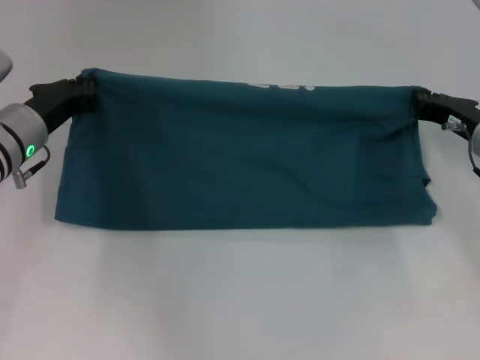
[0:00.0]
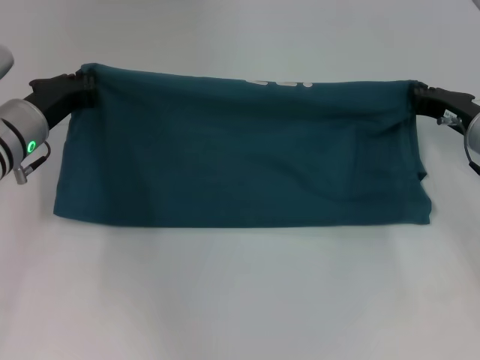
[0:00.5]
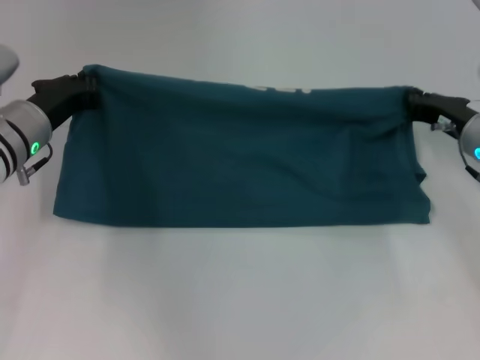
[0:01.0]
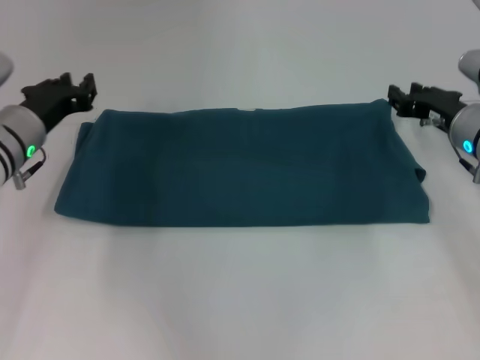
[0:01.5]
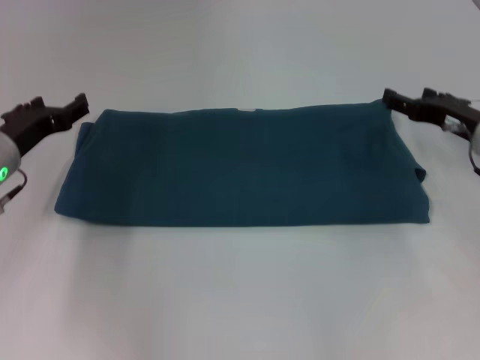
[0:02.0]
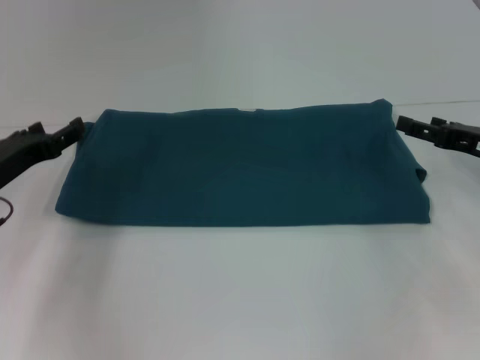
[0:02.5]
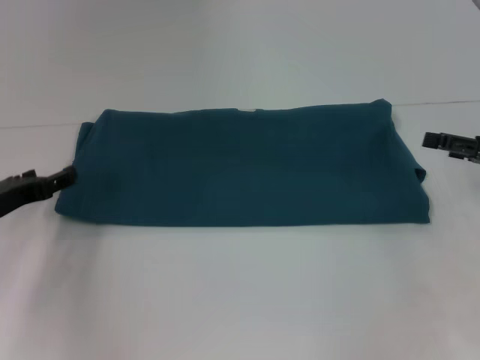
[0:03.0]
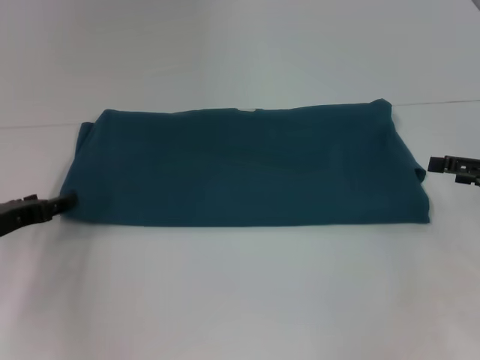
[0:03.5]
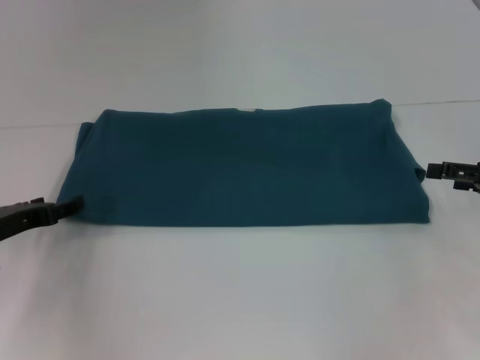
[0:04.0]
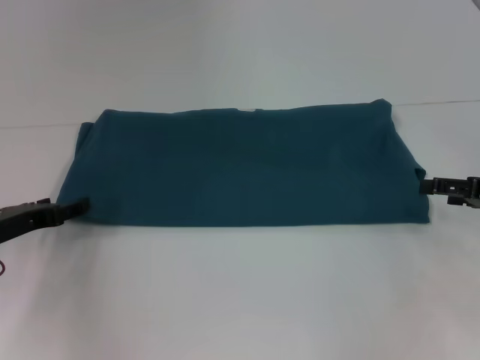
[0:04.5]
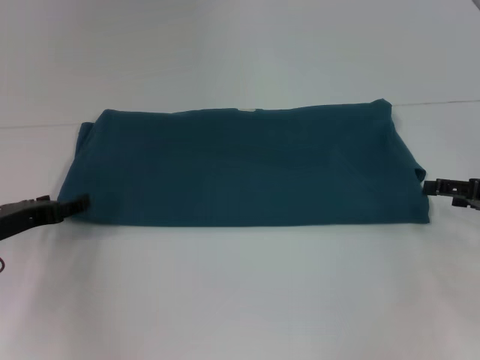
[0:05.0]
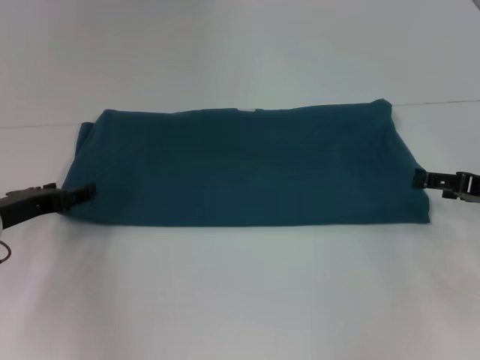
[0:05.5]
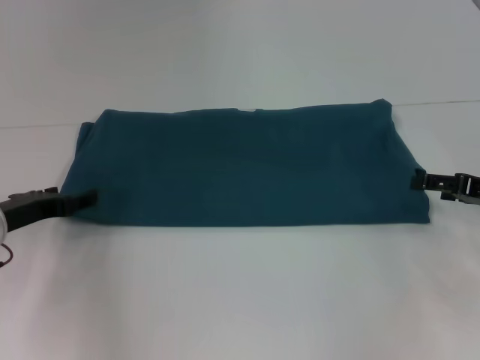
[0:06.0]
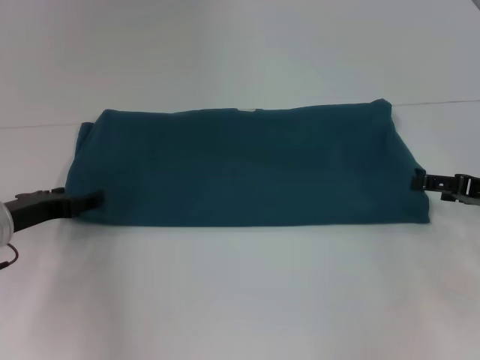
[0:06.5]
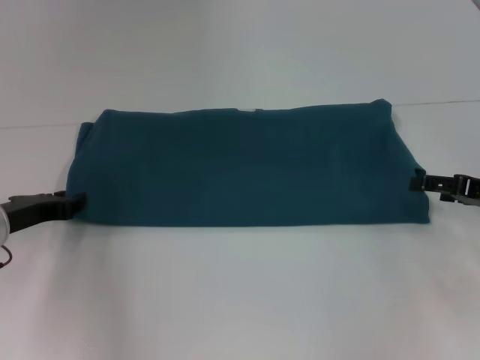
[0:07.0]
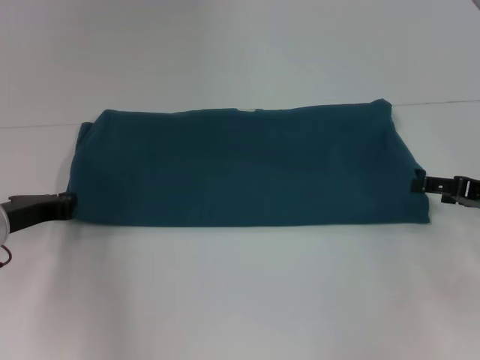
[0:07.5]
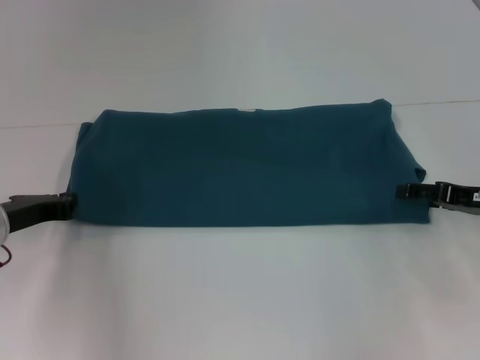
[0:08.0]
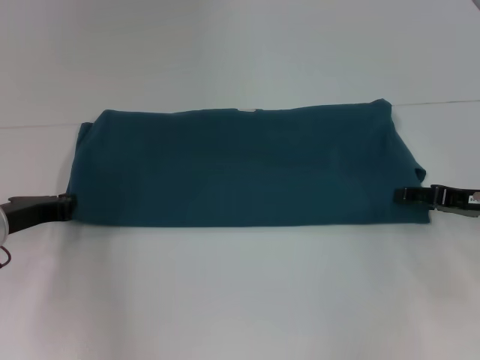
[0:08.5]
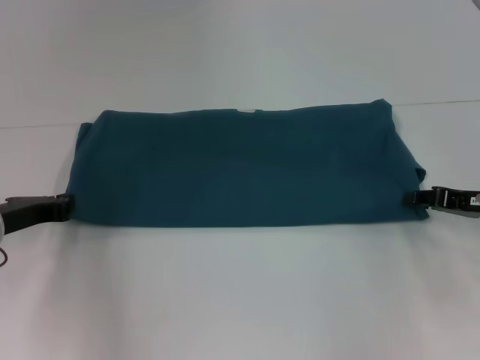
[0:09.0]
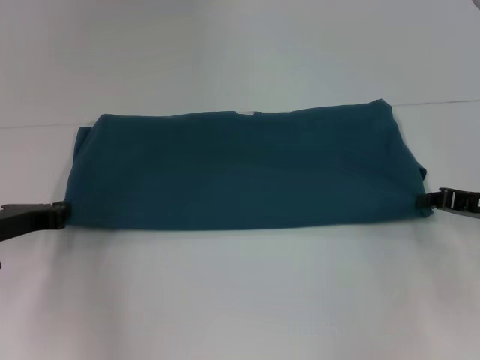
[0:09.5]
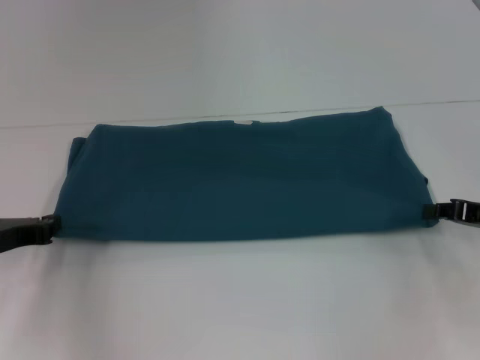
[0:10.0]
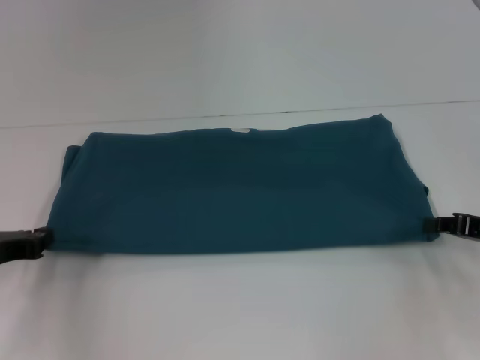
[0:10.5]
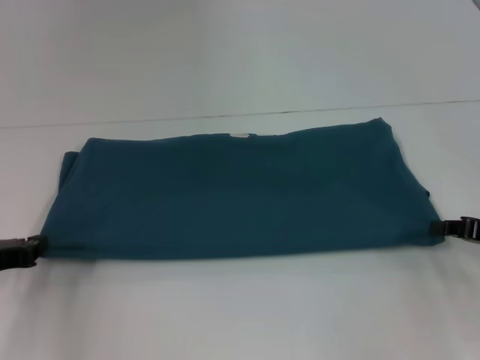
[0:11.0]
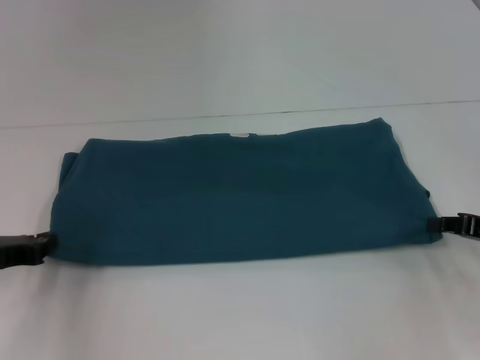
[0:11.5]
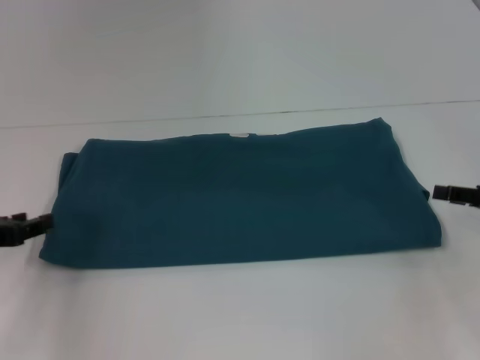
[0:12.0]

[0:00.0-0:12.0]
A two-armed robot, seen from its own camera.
Step, 0:01.5 to 0:11.5: Pull the clothes with your left hand.
Step, 0:01.5 to 0:11.5: Pull the clothes with your right hand.
0:00.0 to 0:02.0: The right gripper opens up. Meanwhile the left gripper opens its fingers.
0:02.0 to 0:04.0: The left gripper heads backward, covering approximately 5 cm. Meanwhile the right gripper travels to the right and backward by approximately 10 cm.
0:04.0 to 0:06.0: The grippers move only a little.
0:06.0 to 0:08.0: The left gripper closes its fingers.
0:08.0 to 0:10.0: The right gripper closes up.
0:10.0 to 0:12.0: The grippers make only small movements.

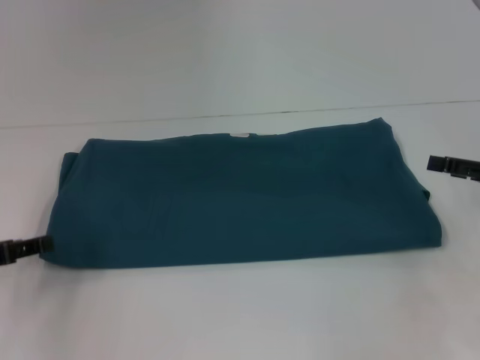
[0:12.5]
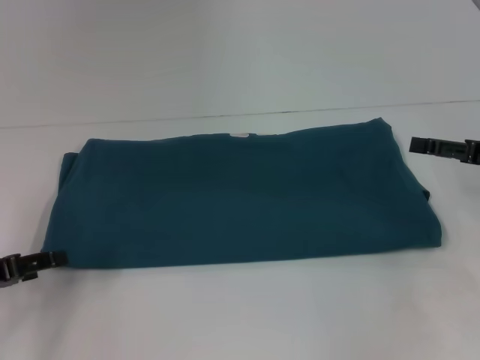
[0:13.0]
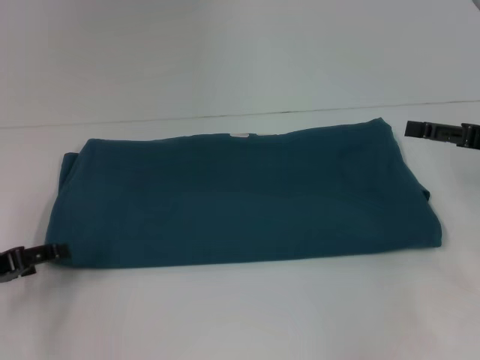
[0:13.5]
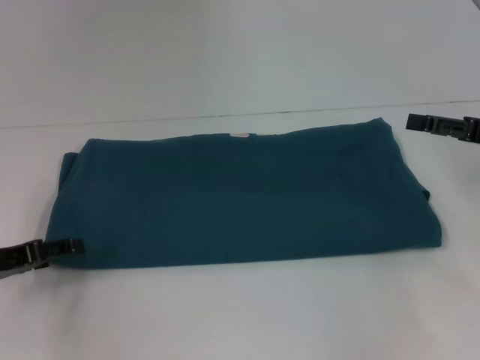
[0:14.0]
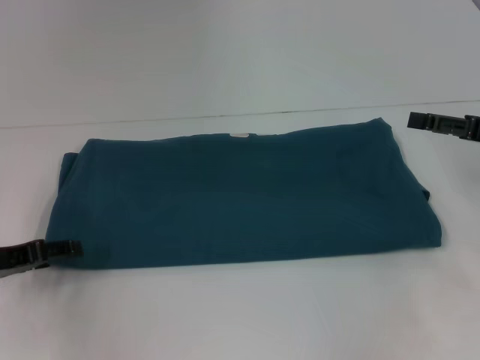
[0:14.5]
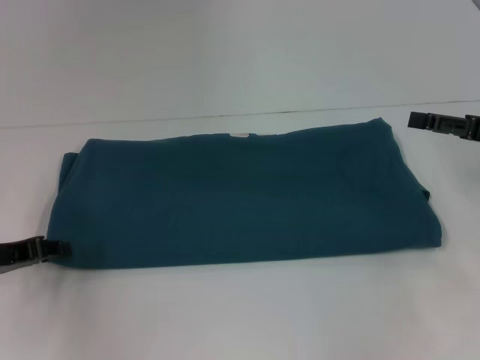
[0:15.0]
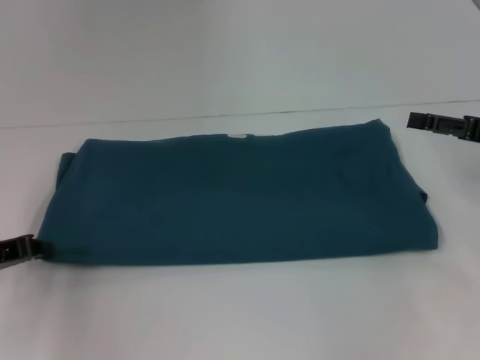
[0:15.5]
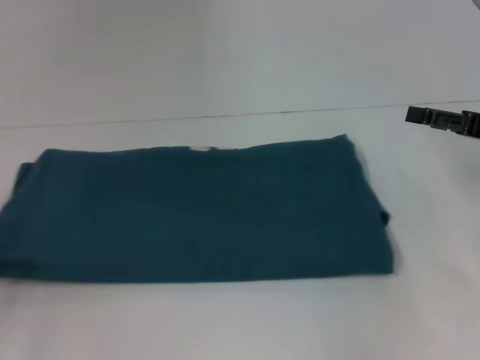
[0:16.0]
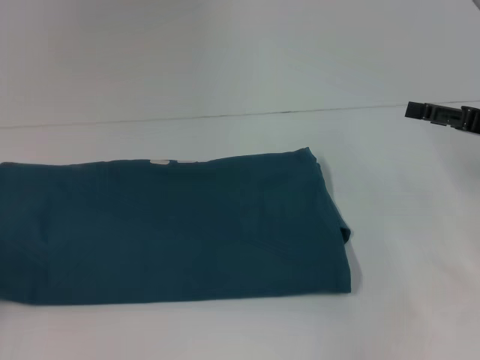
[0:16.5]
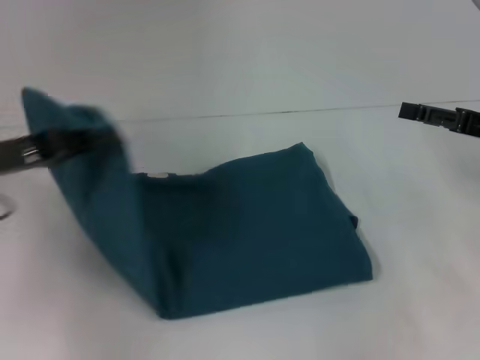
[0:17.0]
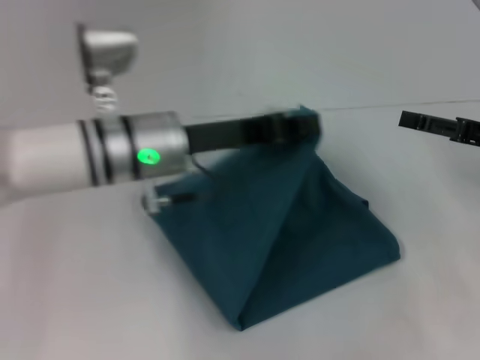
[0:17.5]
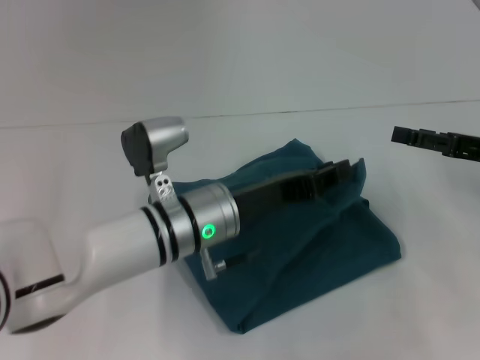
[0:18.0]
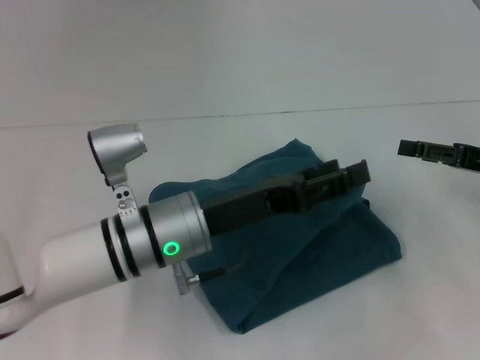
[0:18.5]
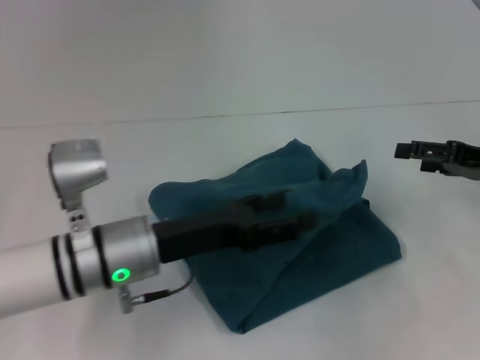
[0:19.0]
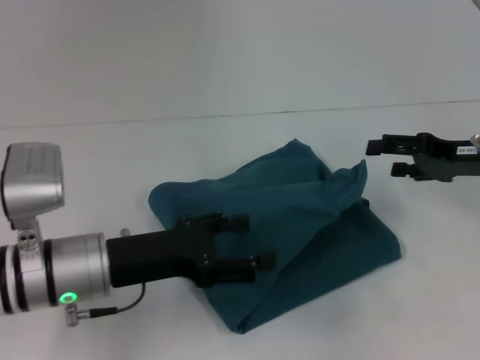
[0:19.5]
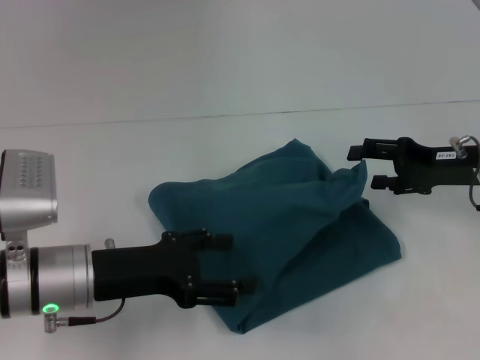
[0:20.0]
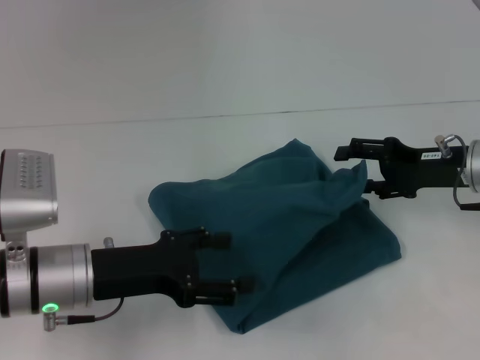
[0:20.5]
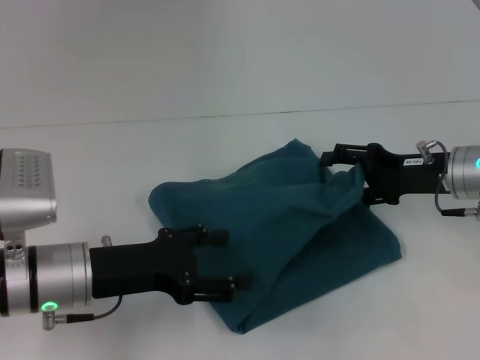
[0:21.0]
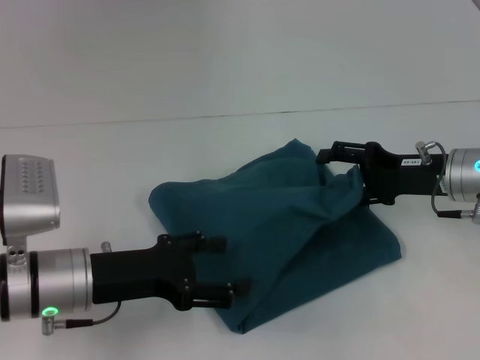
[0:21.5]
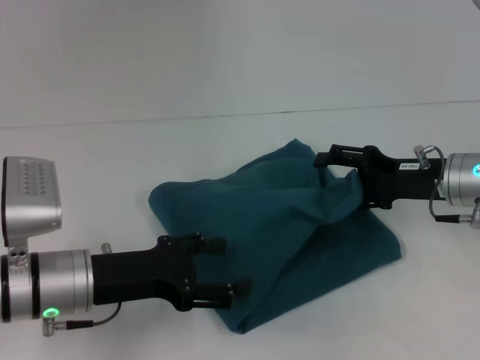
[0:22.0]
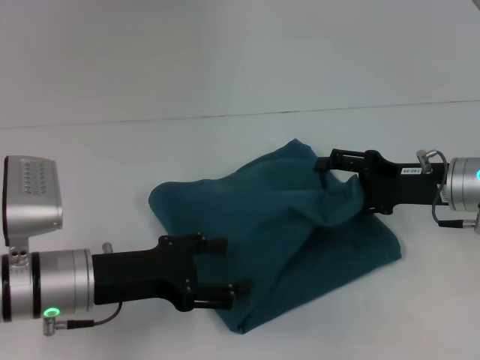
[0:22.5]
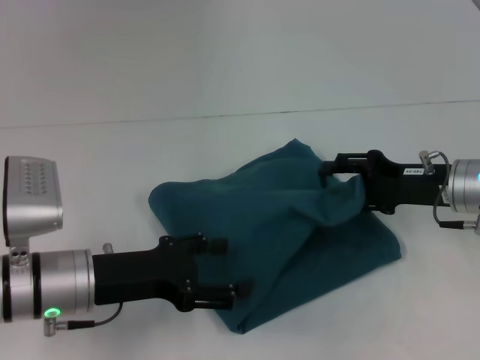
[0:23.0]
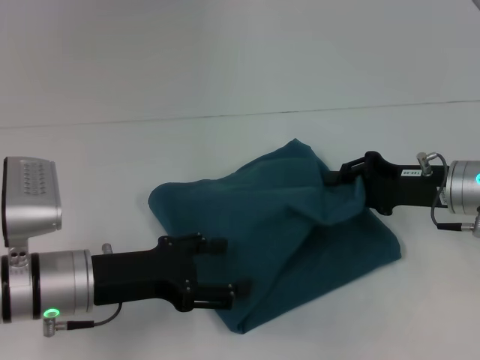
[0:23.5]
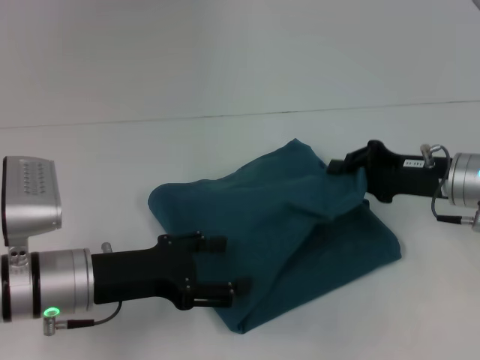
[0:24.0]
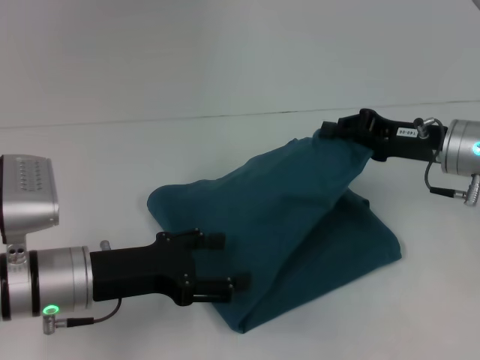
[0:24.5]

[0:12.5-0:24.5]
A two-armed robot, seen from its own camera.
Step, 0:12.5 to 0:18.0: Fold the clothes to the left.
0:12.5 to 0:14.5: The grippers move only a little.
0:14.5 to 0:16.5: The left gripper moves to the left and backward, roughly 10 cm, and closes its fingers.
0:16.5 to 0:18.5: The left gripper shifts approximately 30 cm to the right, and opens.
0:18.5 to 0:20.5: The right gripper goes about 5 cm to the left. The left gripper is displaced to the left by approximately 10 cm, and opens.
0:20.5 to 0:22.5: The grippers stay close to where they were, moving slightly.
0:22.5 to 0:24.5: The right gripper closes its fingers.

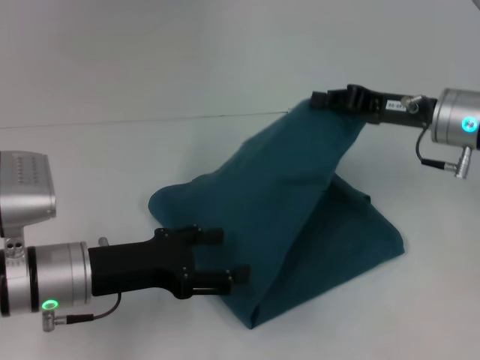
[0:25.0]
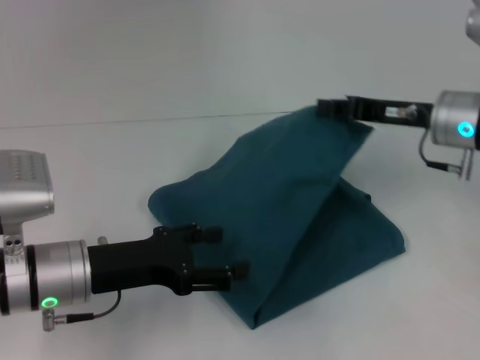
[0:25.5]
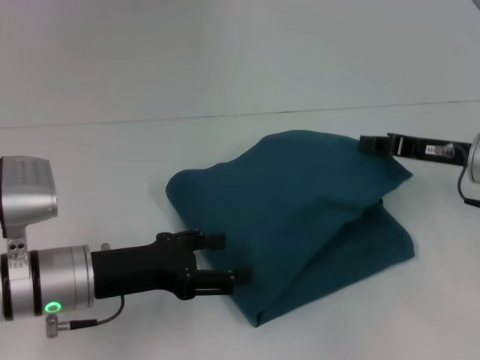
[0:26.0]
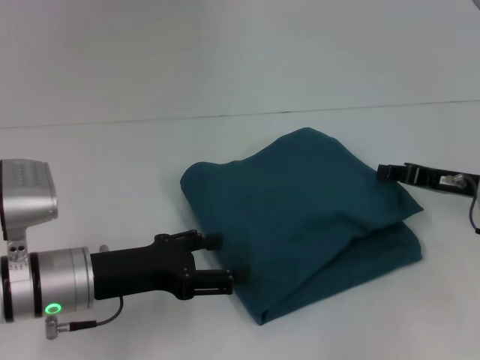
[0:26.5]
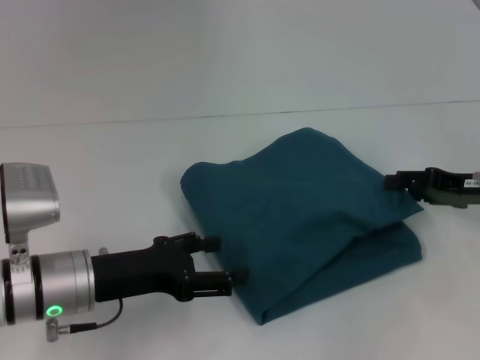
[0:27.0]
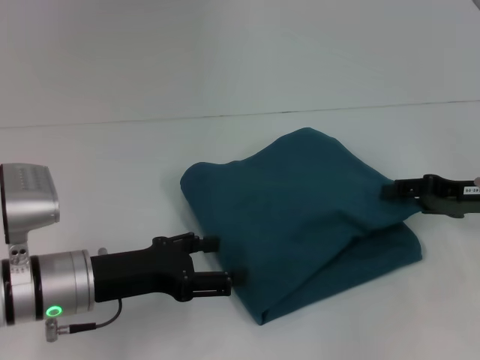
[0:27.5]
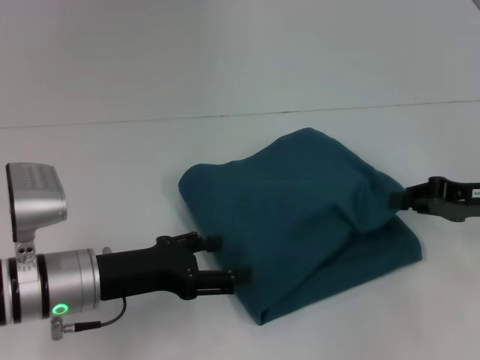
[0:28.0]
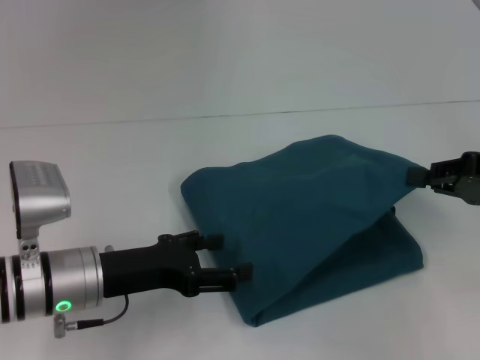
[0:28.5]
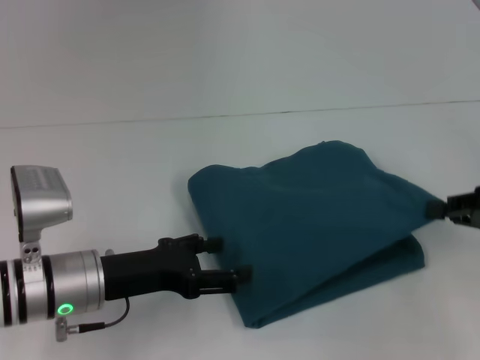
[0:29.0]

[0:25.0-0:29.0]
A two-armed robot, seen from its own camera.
0:25.0 to 0:27.0: The right gripper moves to the right and downward, roughly 10 cm, and opens up.
0:27.0 to 0:29.0: The right gripper shifts about 5 cm backward, and closes up.
